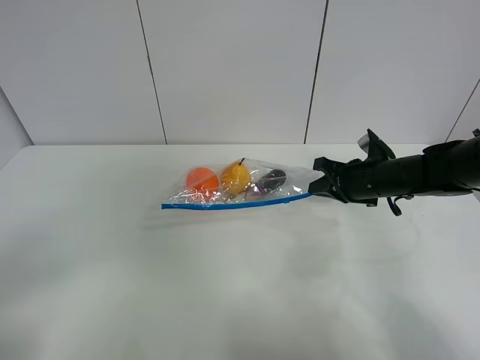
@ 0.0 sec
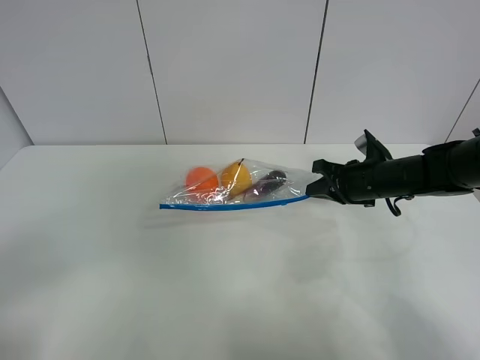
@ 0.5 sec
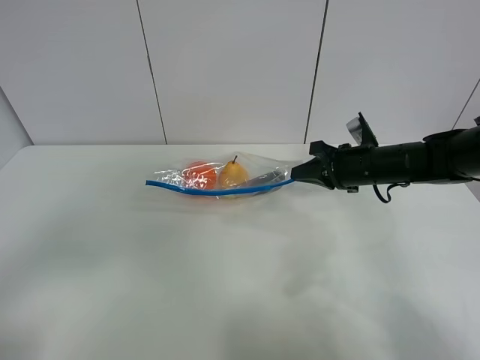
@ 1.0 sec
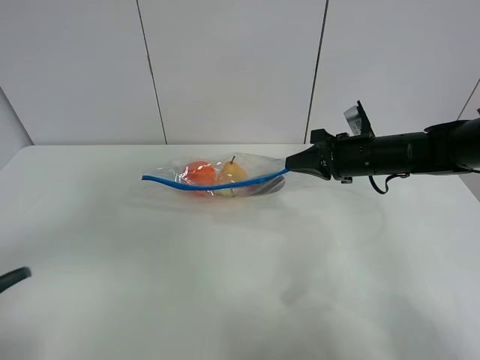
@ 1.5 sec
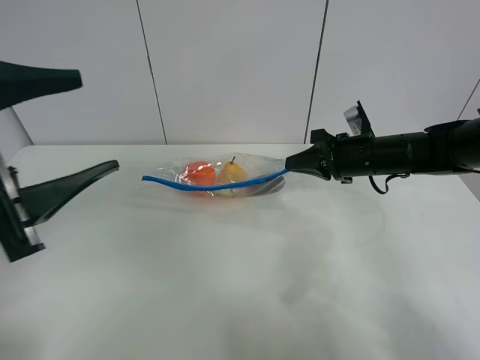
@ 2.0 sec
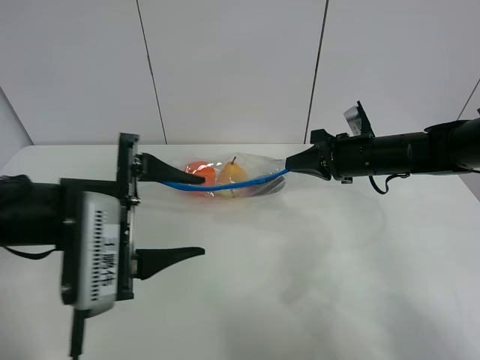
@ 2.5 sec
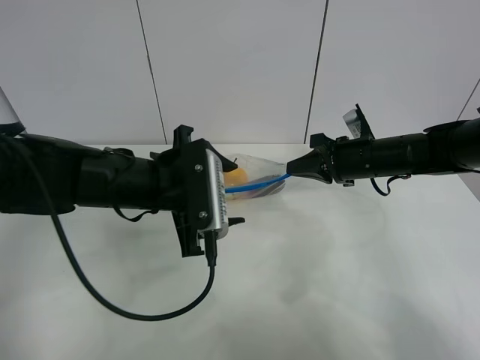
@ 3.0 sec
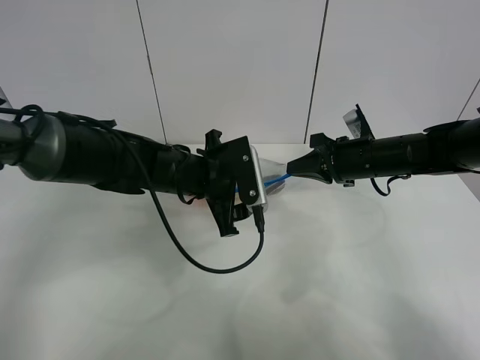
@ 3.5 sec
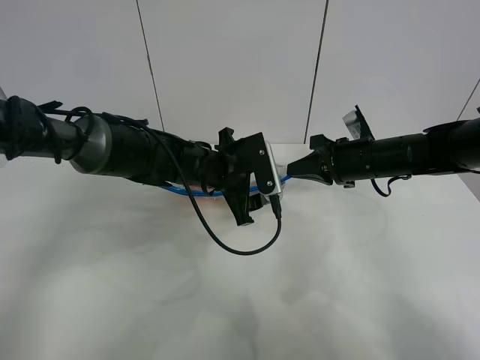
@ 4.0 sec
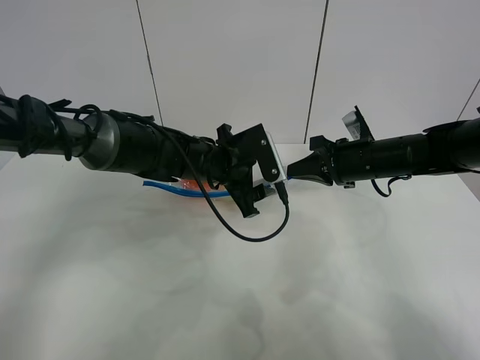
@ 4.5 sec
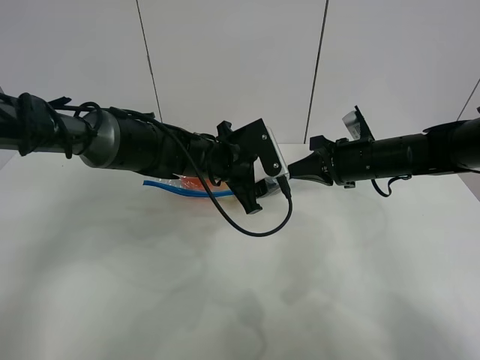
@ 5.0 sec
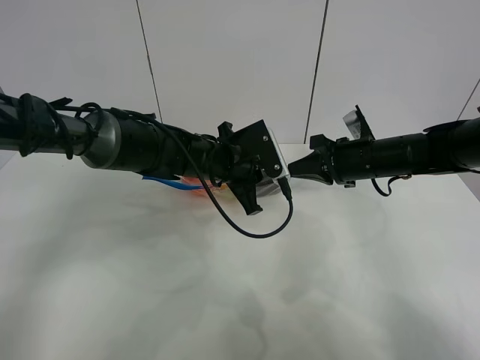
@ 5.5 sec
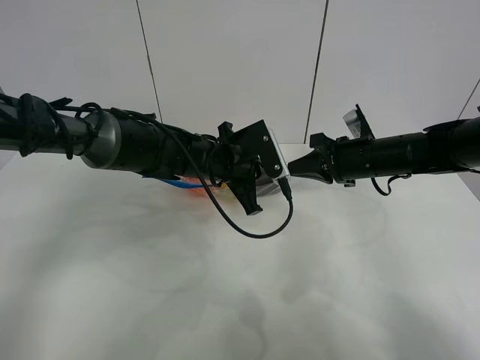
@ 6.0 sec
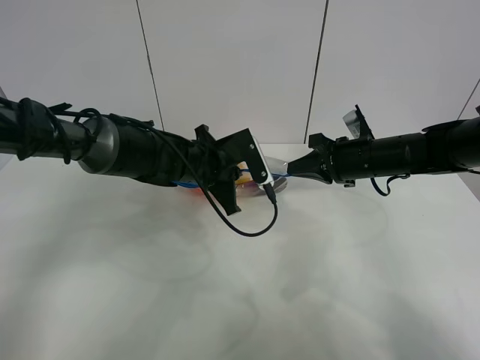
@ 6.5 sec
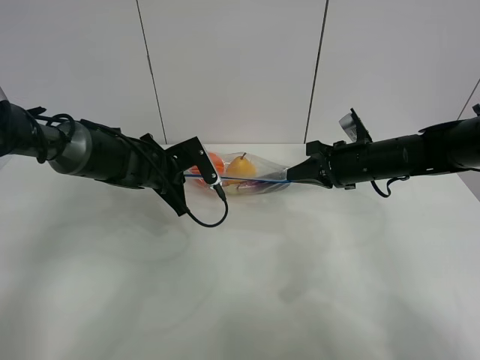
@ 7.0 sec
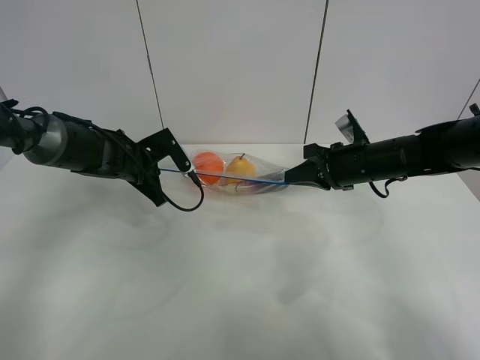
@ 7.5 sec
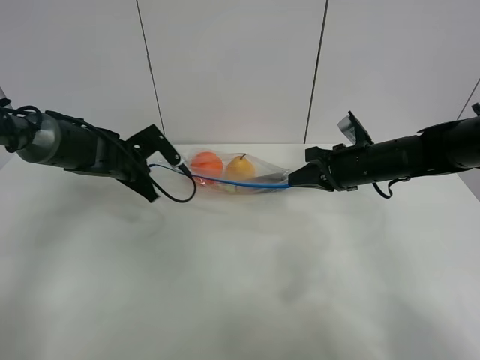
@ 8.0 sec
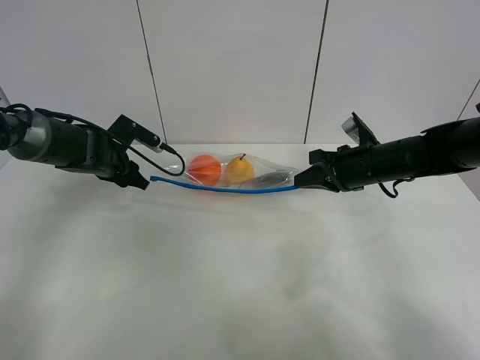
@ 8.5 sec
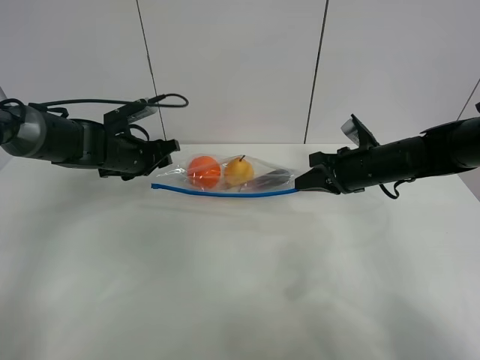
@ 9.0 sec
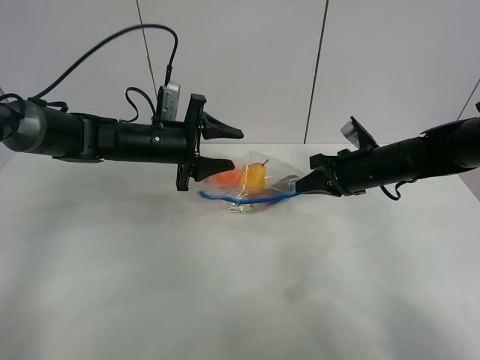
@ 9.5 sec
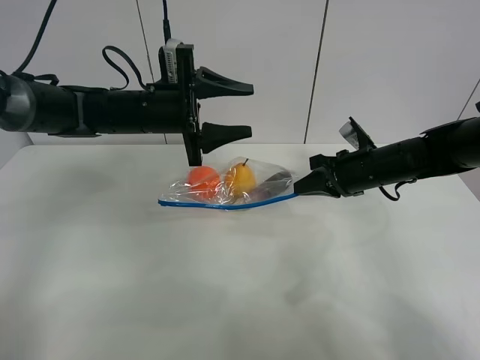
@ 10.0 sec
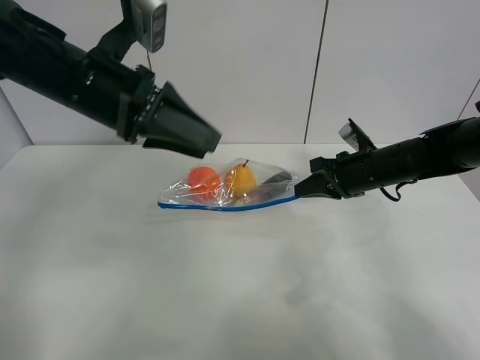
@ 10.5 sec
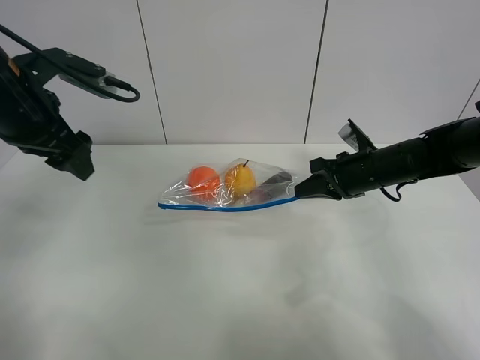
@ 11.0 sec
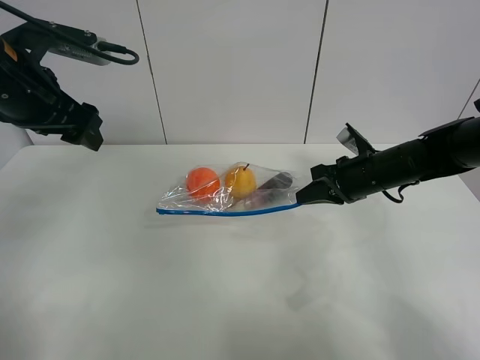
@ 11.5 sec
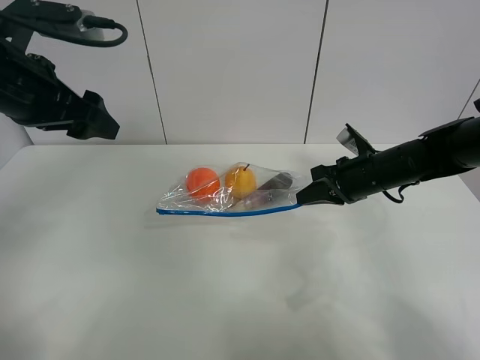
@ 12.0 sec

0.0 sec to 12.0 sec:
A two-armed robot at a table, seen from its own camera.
Step, 0.0 sec to 1.0 sec: Lift the fruit bag with your right gripper.
Step, 1.5 sec to 8.0 sec: Pull the fruit bag with left gripper.
0.0 sec to 2.0 sec: The left gripper goes approximately 20 cm forward and to the right.
2.0 sec to 4.0 sec: The left gripper moves forward, to the right and downward, about 30 cm.
4.0 sec to 6.0 sec: The left gripper closes.
6.0 sec to 8.0 sec: The left gripper travels to the left by roughly 20 cm.
8.0 sec to 10.0 sec: The left gripper moves to the right and upward, approximately 15 cm, and opens up.
10.0 sec to 12.0 sec: The left gripper travels to the left, upward and backward by roughly 15 cm.

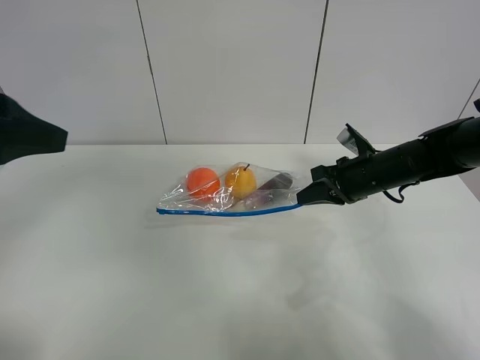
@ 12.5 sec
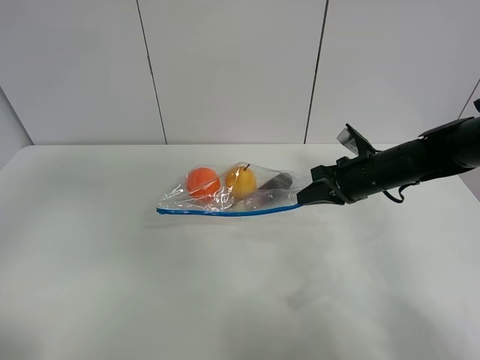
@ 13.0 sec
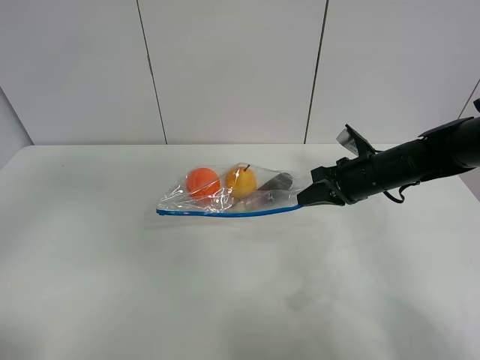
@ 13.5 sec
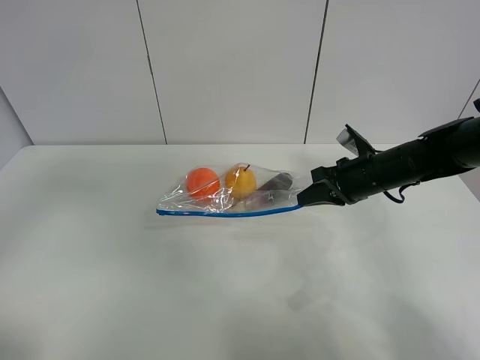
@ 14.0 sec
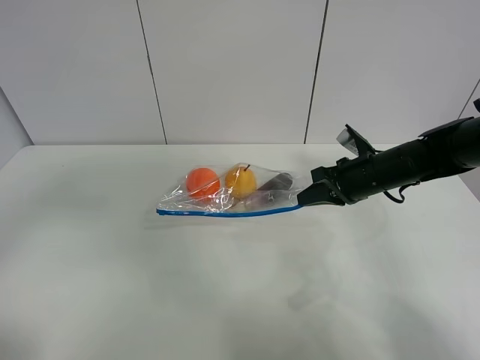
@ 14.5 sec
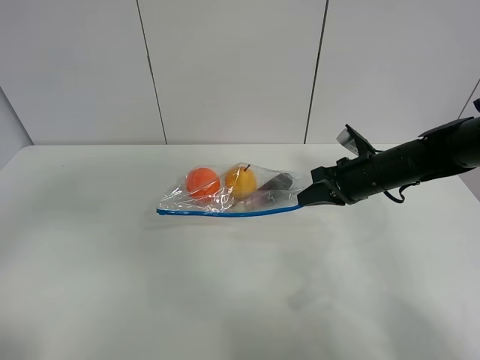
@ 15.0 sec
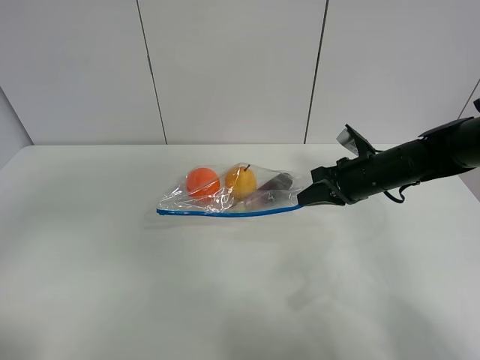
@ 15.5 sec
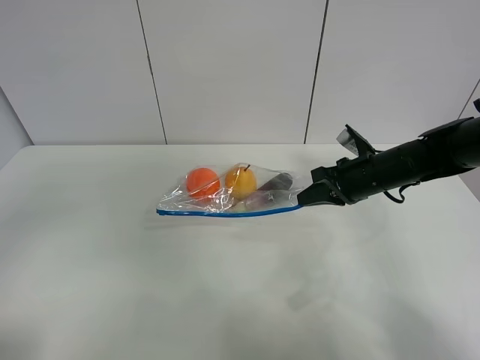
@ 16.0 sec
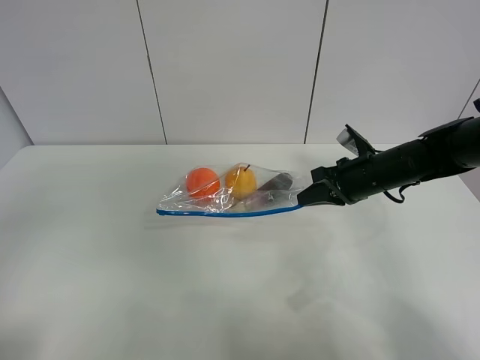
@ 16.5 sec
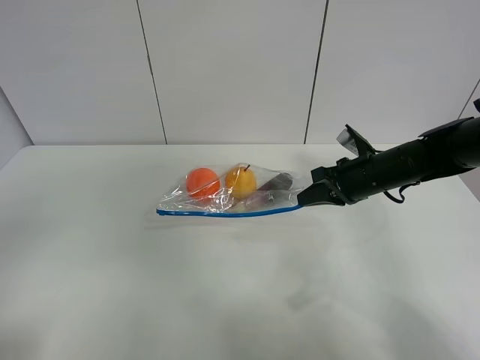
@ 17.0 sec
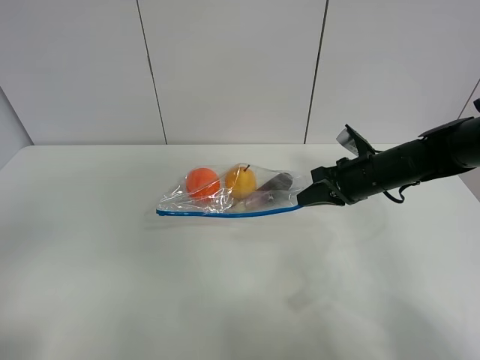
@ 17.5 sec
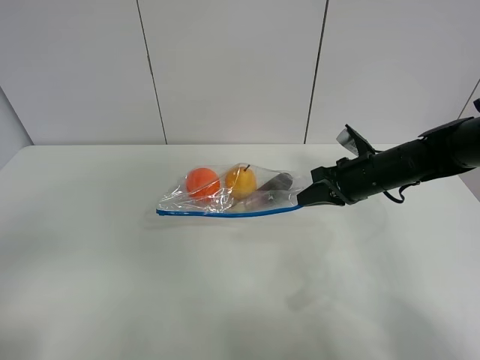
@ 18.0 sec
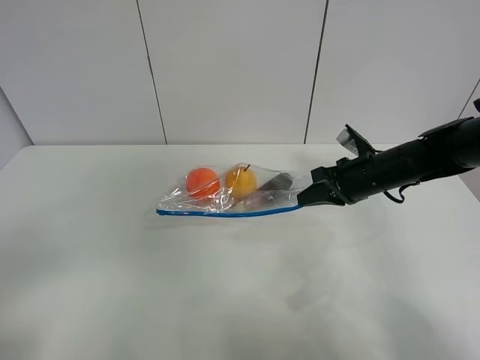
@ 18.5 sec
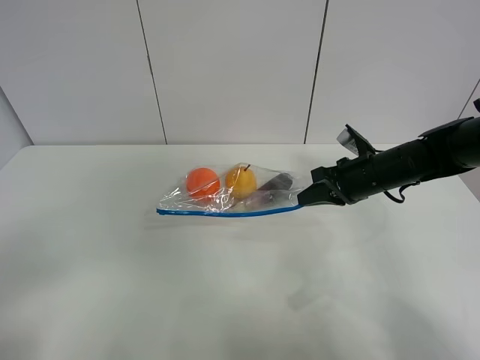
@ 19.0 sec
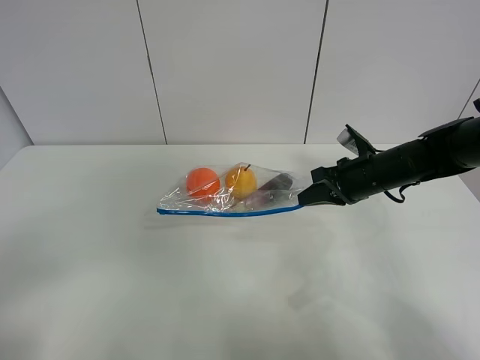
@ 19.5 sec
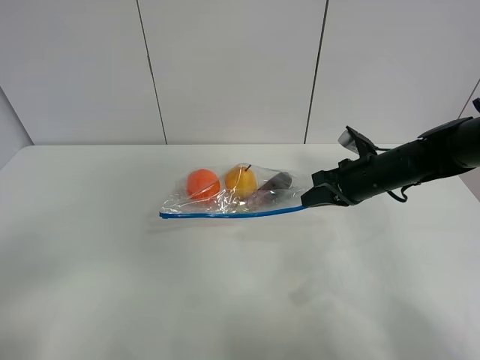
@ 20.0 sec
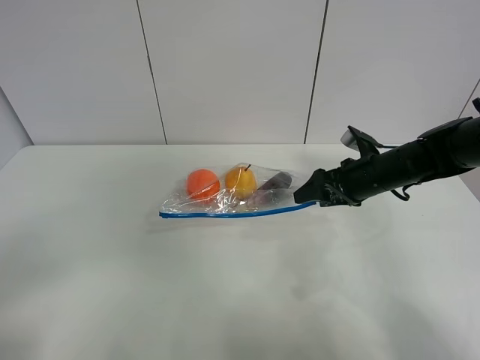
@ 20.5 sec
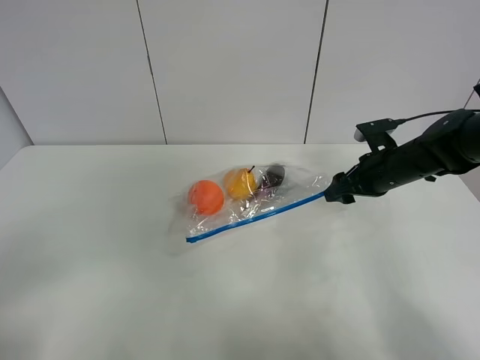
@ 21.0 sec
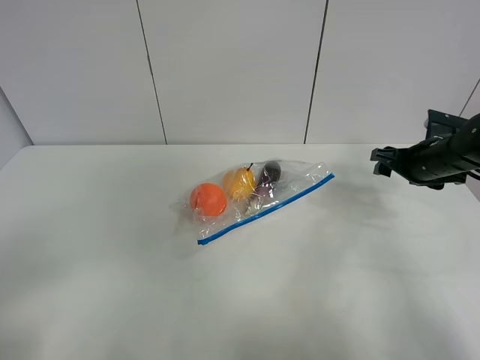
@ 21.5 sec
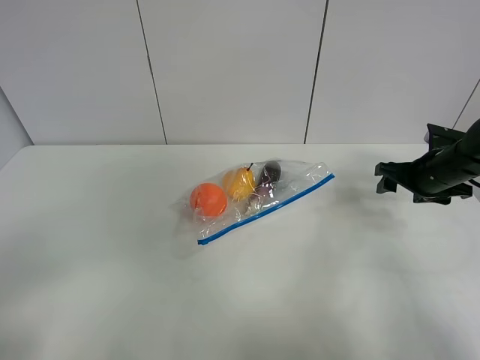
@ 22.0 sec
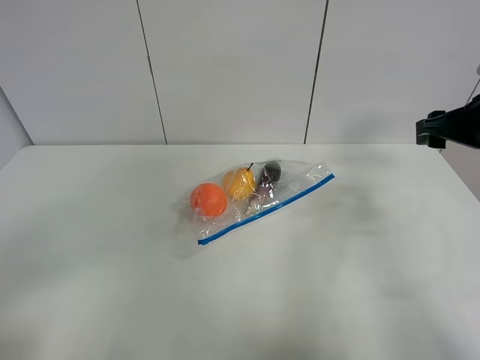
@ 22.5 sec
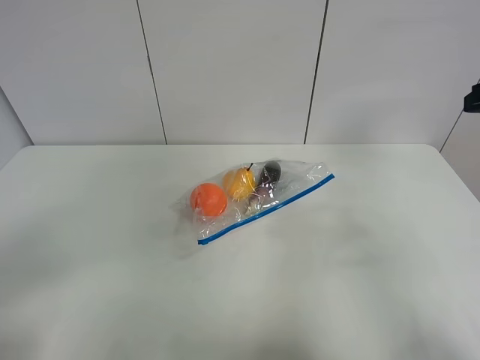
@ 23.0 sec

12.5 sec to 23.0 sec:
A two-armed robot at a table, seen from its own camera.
12.5 sec to 14.5 sec: The left gripper shifts by about 5 cm.
19.0 sec to 21.0 sec: The right gripper opens its fingers.
21.0 sec to 23.0 sec: The right gripper is displaced upward and backward by about 25 cm.

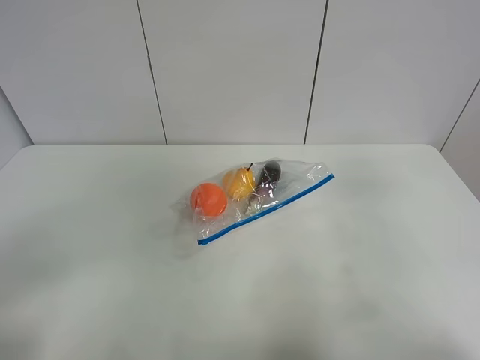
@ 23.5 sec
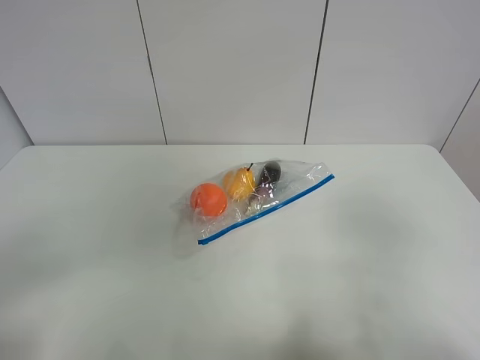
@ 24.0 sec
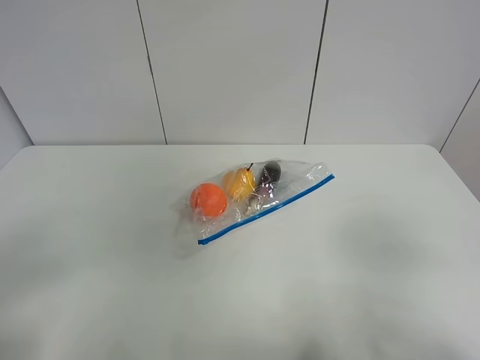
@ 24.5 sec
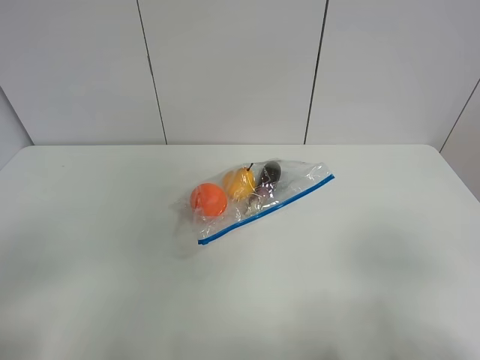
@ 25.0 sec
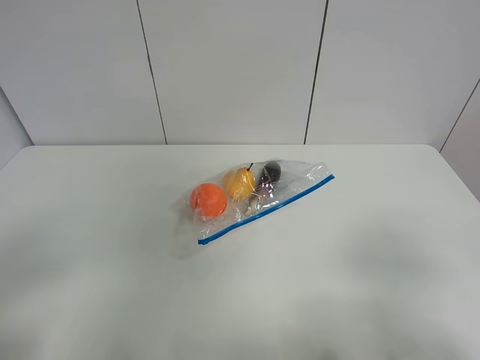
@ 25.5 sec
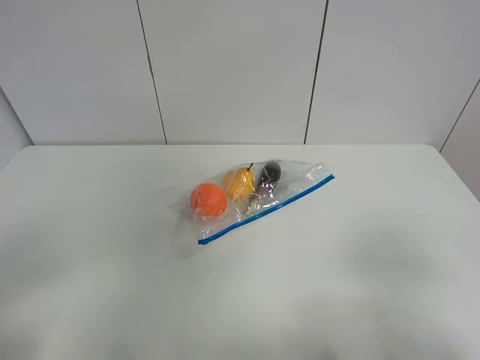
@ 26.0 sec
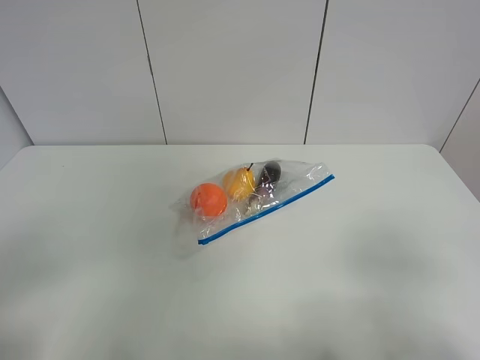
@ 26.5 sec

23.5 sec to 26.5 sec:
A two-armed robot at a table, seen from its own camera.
23.5 sec to 25.0 sec: The right gripper is displaced backward and downward by some 15 cm.
25.0 sec to 26.5 sec: Neither gripper changes place.
